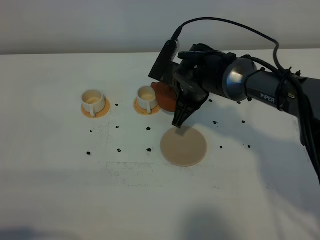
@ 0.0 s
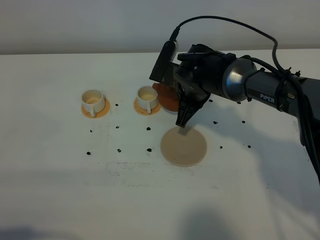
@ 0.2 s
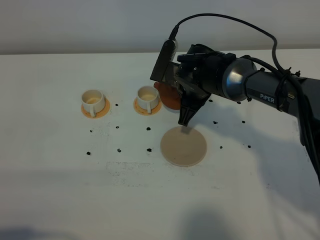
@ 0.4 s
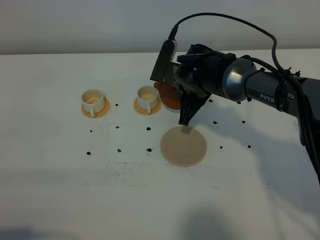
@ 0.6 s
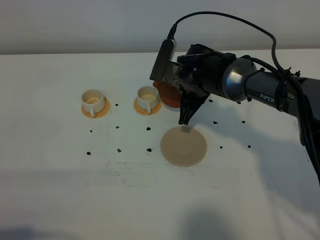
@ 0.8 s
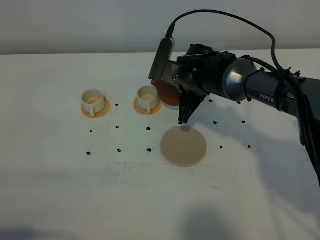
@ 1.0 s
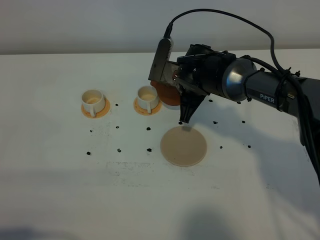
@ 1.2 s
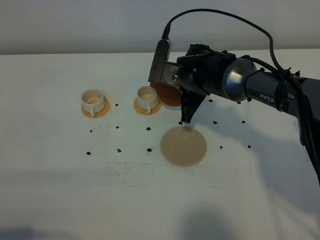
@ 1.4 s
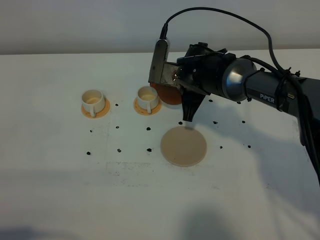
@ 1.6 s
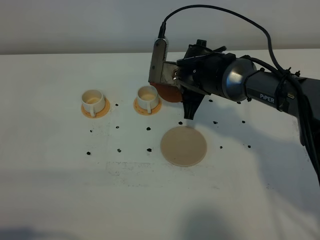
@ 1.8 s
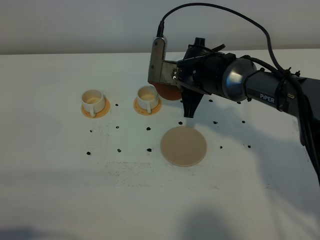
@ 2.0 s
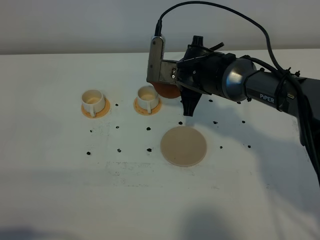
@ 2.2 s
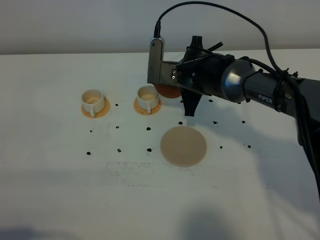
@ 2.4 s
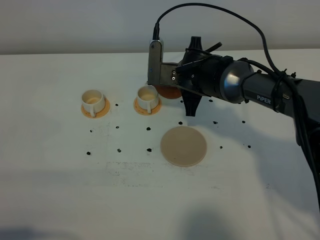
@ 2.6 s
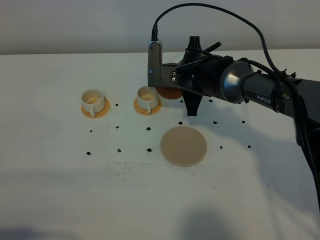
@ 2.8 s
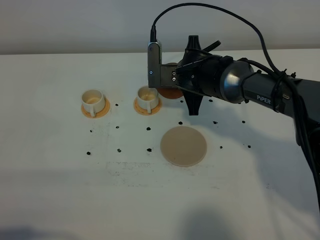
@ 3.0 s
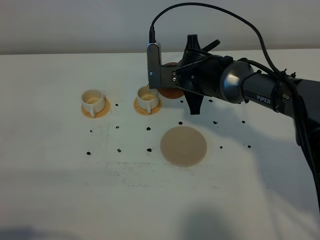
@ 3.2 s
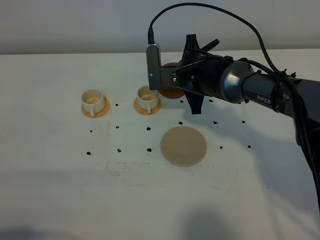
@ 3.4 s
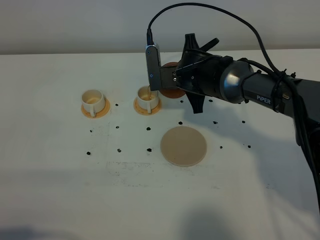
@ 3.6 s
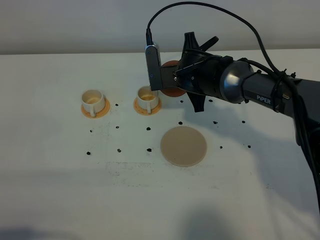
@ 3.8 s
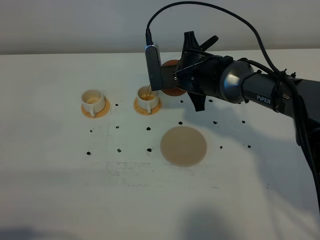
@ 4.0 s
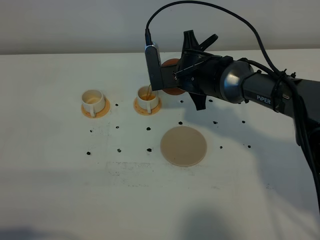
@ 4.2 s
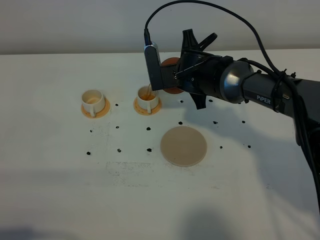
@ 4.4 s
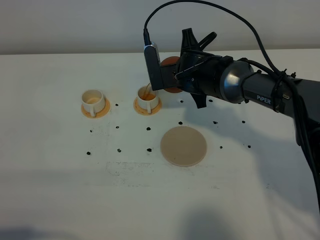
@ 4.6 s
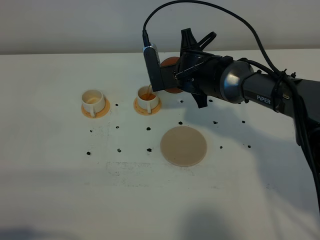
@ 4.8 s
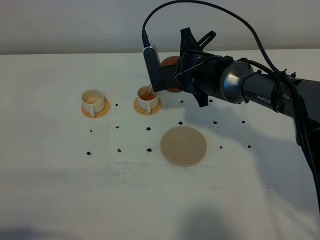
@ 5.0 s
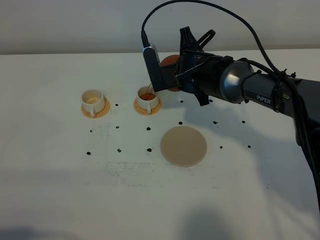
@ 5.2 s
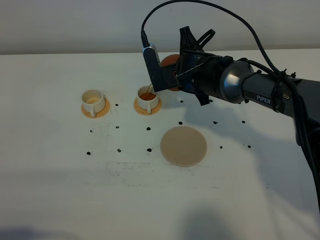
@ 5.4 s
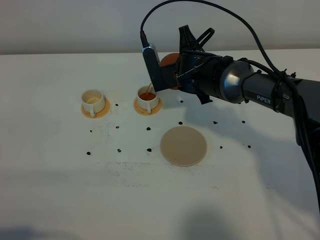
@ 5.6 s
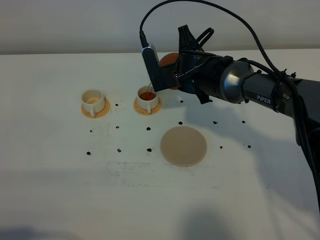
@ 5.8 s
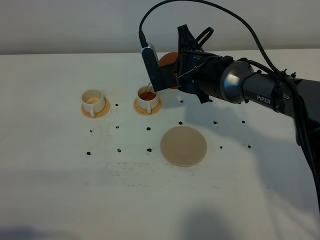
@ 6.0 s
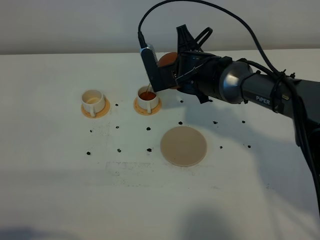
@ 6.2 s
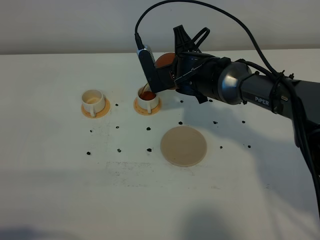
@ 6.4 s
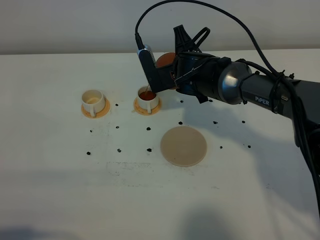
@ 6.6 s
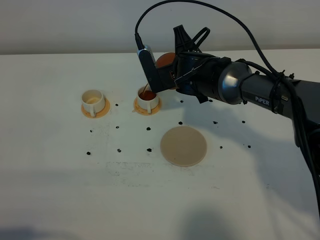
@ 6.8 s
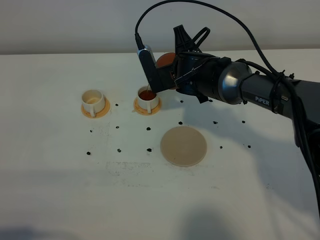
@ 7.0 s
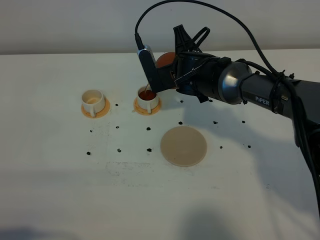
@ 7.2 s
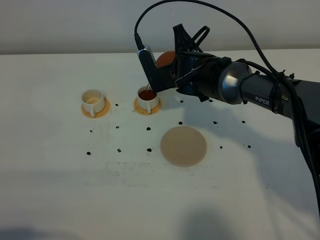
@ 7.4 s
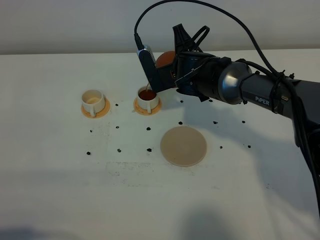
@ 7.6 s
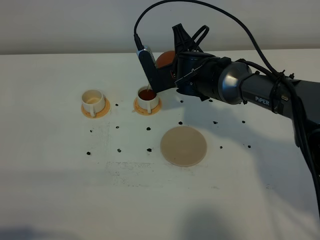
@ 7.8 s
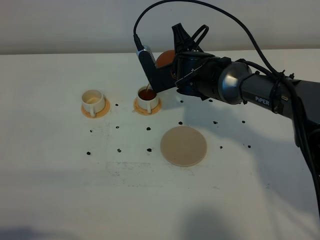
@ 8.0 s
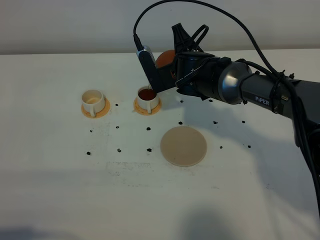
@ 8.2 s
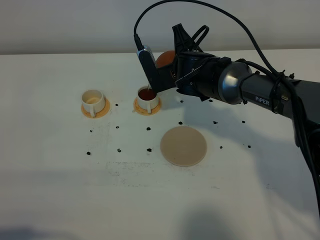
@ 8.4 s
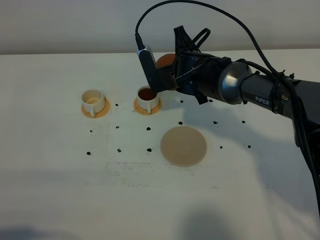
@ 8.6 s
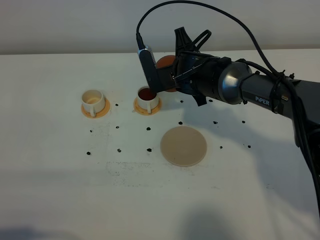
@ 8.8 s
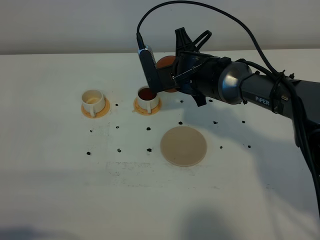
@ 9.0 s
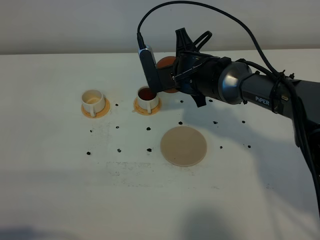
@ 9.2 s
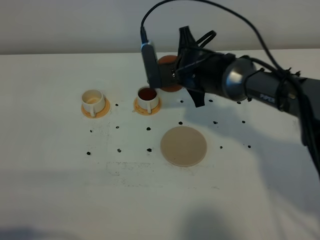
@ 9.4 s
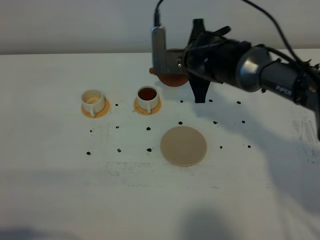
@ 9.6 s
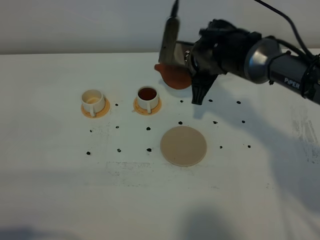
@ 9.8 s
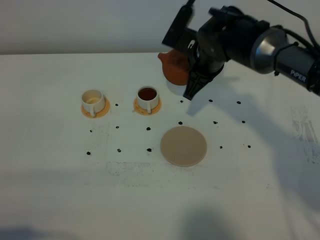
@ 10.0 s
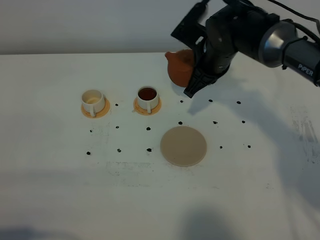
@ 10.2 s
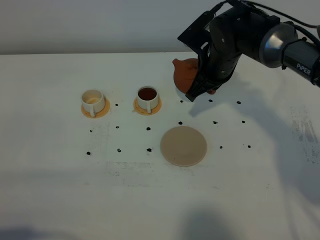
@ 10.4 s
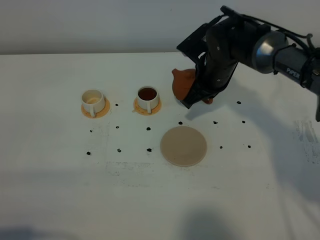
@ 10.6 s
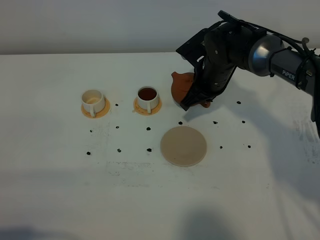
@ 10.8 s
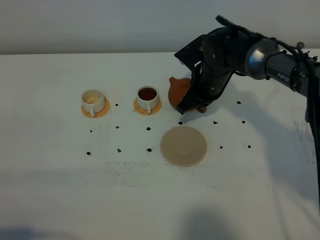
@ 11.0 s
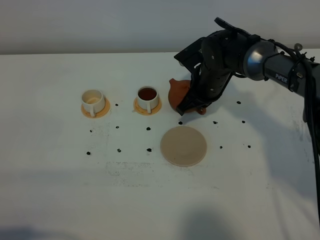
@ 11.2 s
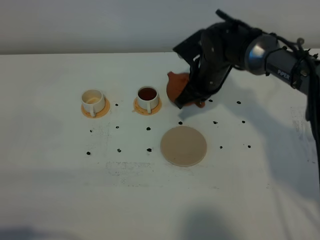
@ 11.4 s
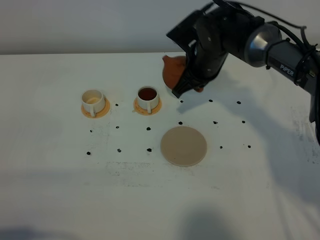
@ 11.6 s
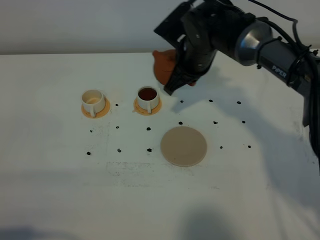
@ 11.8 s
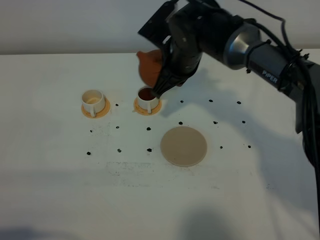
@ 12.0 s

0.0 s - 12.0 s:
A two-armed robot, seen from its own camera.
Task of the whole recording: grasp the brown teapot and pour the tea into the two white teacups one by one, put the brown teapot back in its original place.
Step, 0.0 s - 9.2 s: Pour tea into the teacup with the right gripper.
0.0 s - 1.6 s: The grippers make only small movements.
1.6 s - 3.0 s: There are only small adjustments of the grippers.
3.0 s - 6.0 s: The grippers stay close to where they were, moving slightly.
6.0 s - 7.6 s: Both grippers stay about where they are.
7.6 s - 9.0 s: The grippers make only small movements.
9.0 s - 10.4 s: The right gripper moves to the right, approximately 5 cm.
10.4 s - 12.0 s: The right gripper moves to the left, some 5 cm.

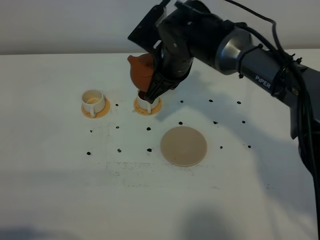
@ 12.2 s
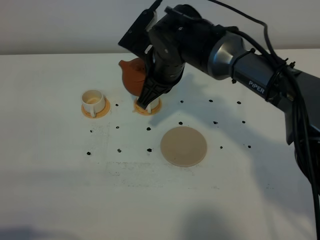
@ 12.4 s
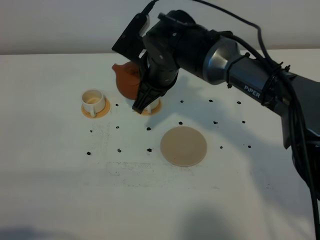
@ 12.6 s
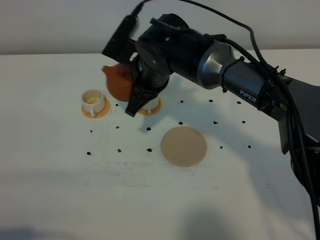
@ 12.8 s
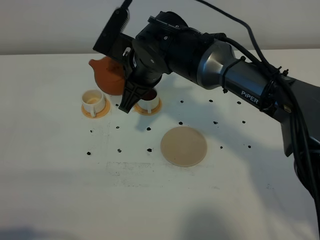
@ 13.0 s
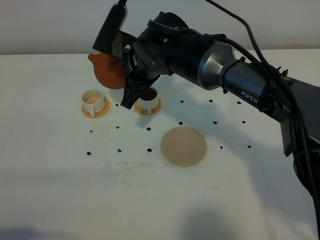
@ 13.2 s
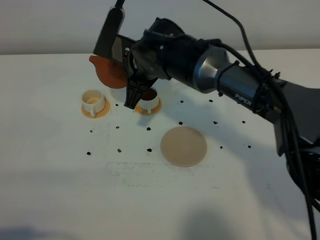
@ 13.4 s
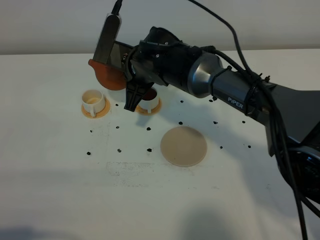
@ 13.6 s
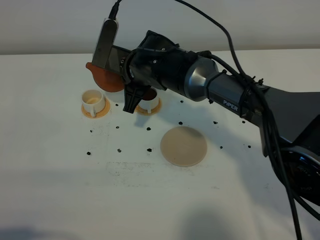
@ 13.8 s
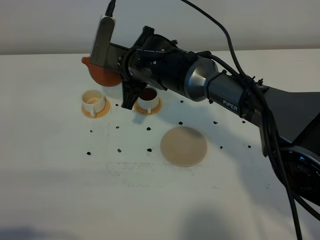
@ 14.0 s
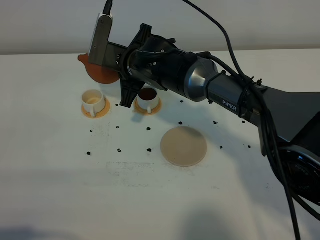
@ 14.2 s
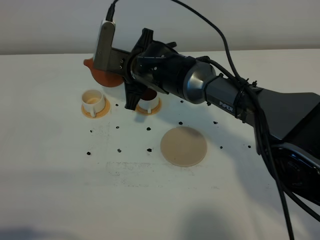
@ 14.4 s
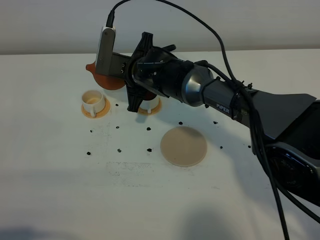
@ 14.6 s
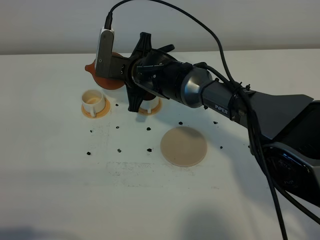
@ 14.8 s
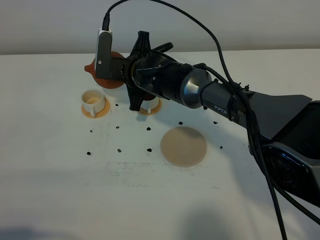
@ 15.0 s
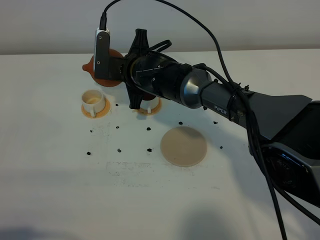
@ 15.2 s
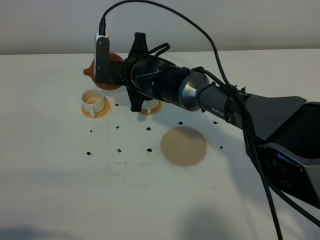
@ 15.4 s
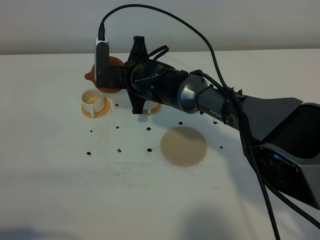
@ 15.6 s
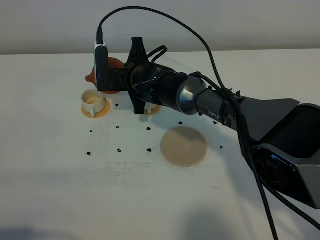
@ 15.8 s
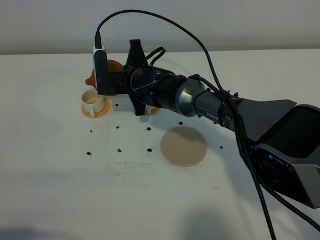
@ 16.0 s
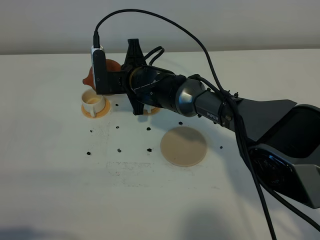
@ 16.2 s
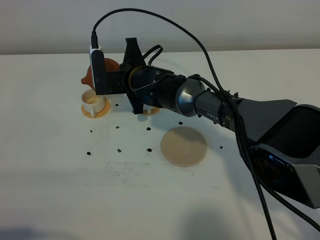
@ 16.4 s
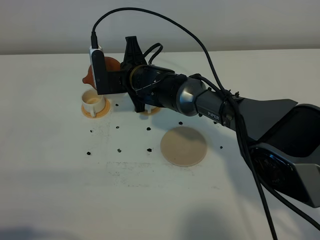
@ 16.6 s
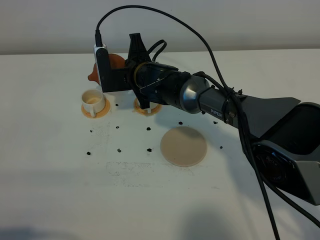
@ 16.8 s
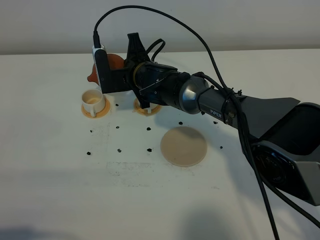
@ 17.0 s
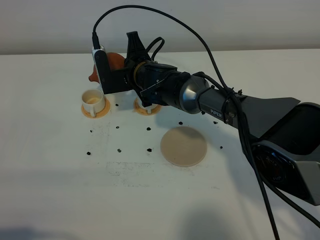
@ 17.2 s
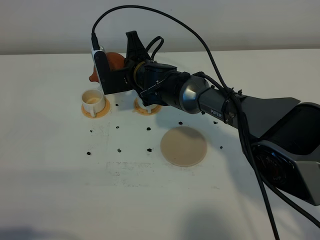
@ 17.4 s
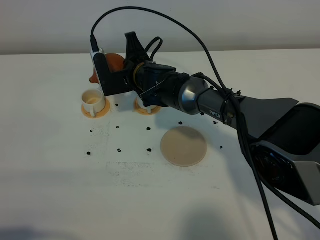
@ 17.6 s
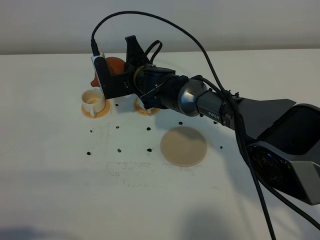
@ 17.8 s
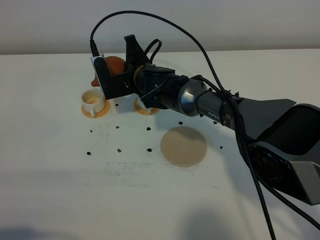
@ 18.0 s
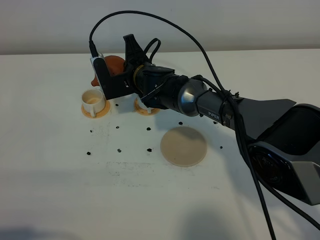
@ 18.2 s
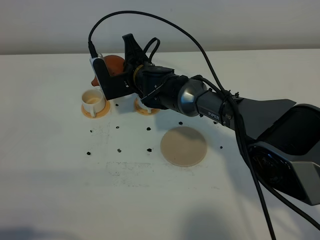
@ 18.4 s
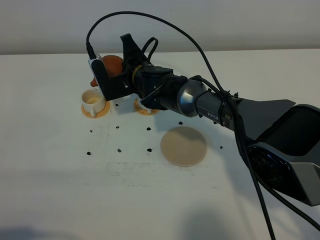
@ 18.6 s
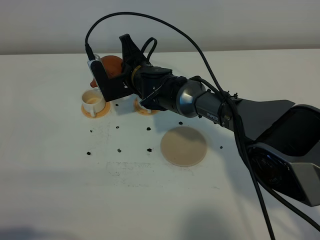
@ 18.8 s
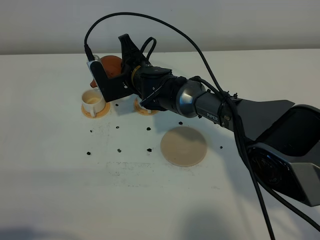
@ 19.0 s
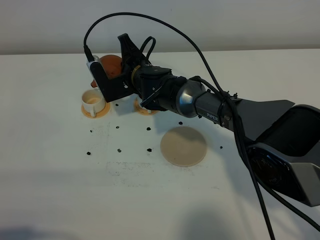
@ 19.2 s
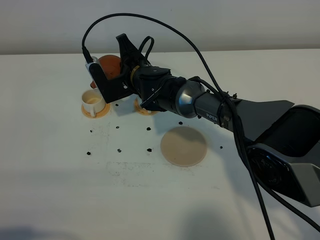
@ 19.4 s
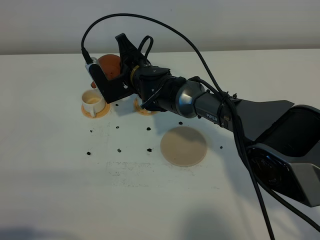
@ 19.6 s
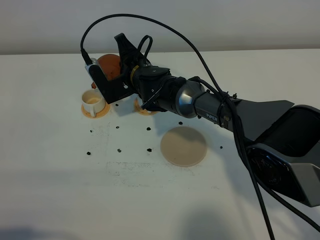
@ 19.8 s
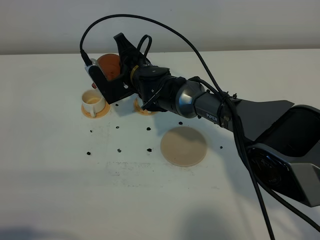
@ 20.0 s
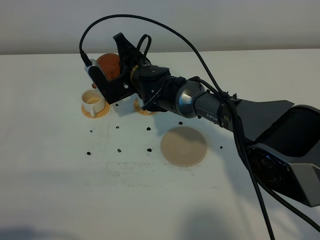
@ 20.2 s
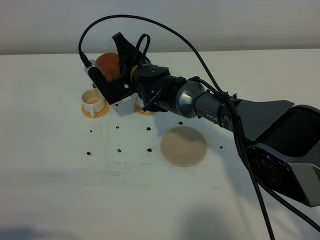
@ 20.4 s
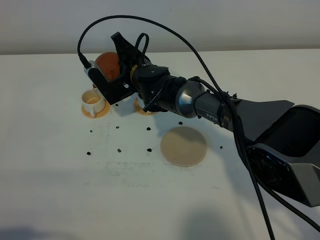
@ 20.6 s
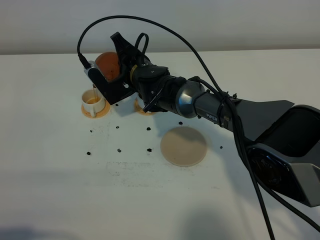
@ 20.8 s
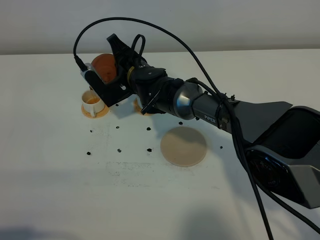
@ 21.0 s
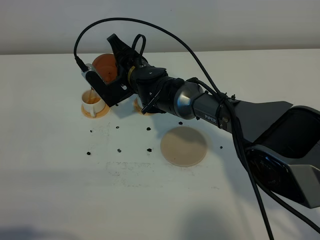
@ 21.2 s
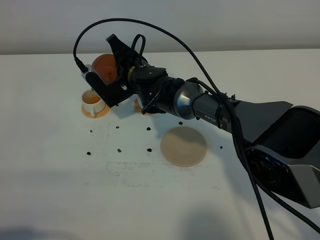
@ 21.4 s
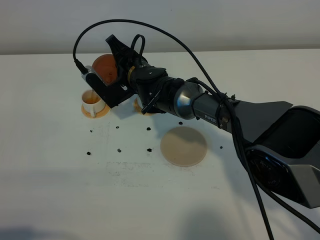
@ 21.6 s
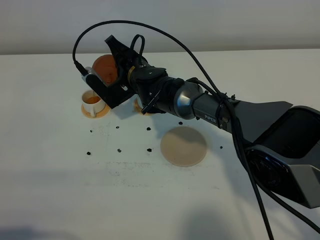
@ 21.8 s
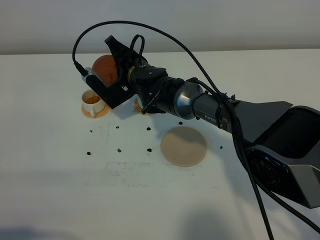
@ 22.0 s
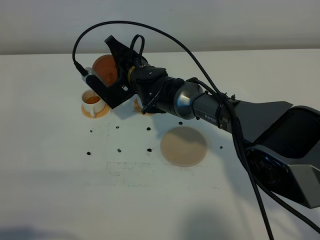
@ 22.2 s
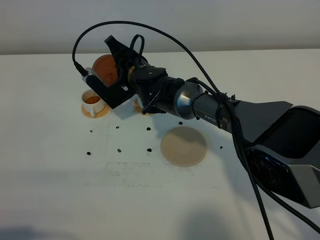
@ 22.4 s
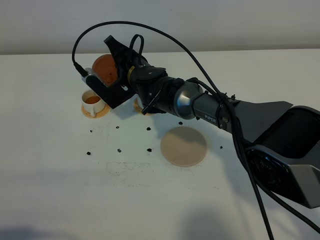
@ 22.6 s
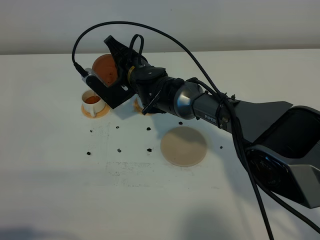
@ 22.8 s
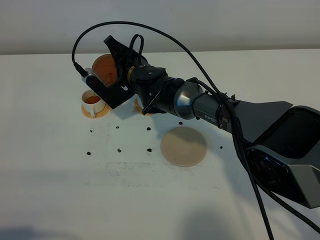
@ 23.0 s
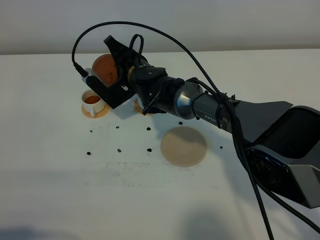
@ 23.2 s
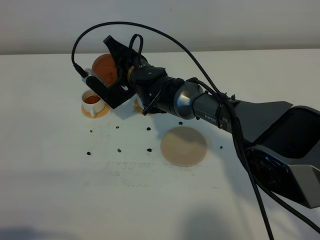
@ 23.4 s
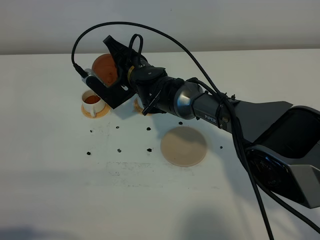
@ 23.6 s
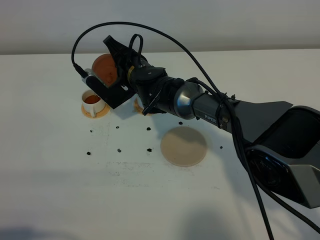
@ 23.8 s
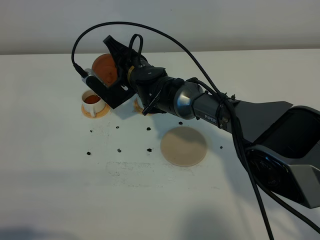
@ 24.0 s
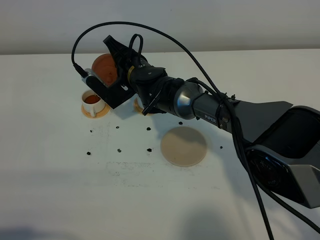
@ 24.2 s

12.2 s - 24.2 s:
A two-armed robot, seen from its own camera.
Task of the whole recording: grasp the brown teapot and pour the tea into the two white teacups one by one, put the brown teapot back in its original place.
12.2 s - 13.8 s: The right gripper moves to the left, some 5 cm.
13.8 s - 15.2 s: The grippers make only small movements.
15.2 s - 16.6 s: The grippers stay close to where they were, moving slightly.
16.6 s - 18.2 s: The grippers stay close to where they were, moving slightly.
18.2 s - 21.2 s: The grippers make only small movements.
21.2 s - 22.6 s: The grippers stay close to where they were, moving slightly.
22.6 s - 24.2 s: Both grippers stay about where they are.
